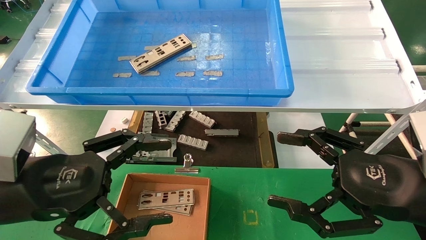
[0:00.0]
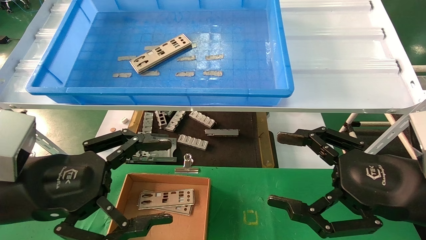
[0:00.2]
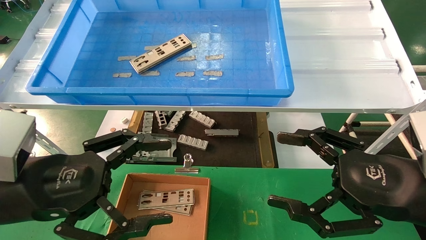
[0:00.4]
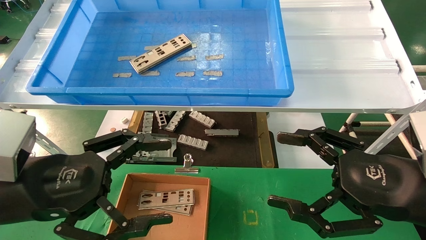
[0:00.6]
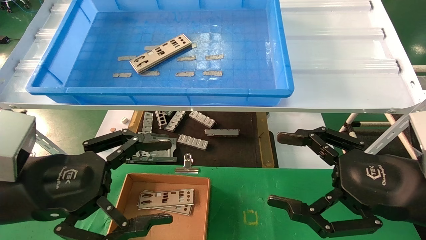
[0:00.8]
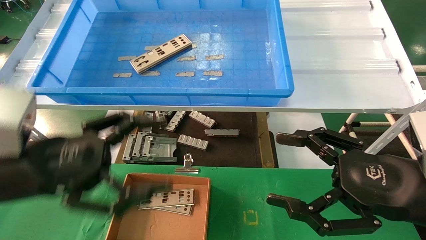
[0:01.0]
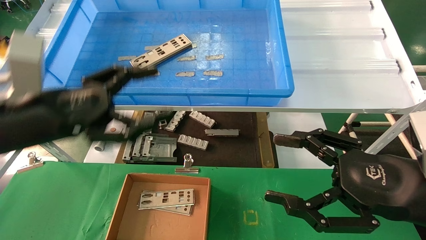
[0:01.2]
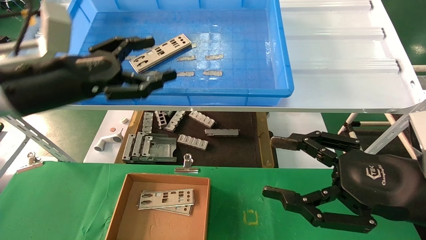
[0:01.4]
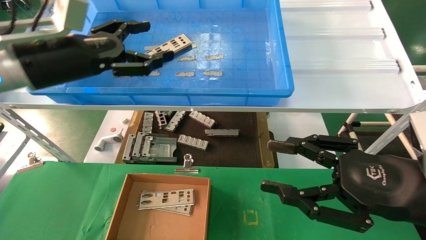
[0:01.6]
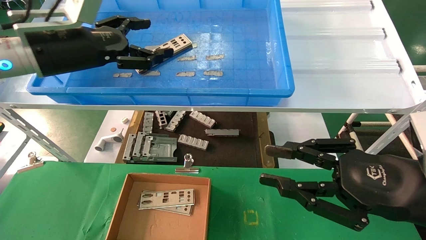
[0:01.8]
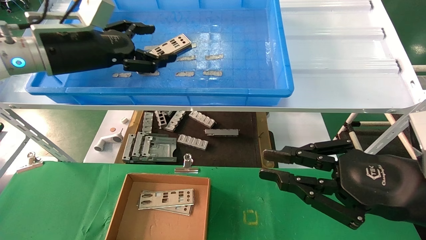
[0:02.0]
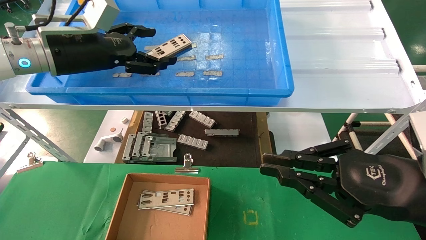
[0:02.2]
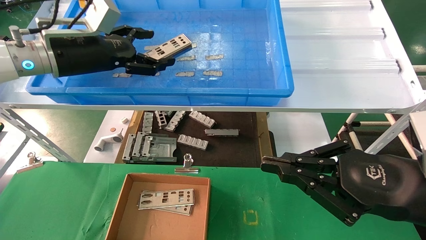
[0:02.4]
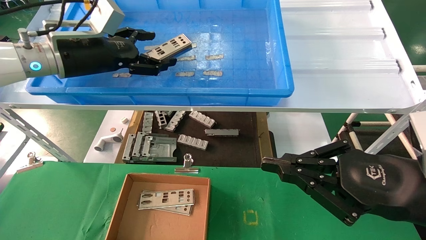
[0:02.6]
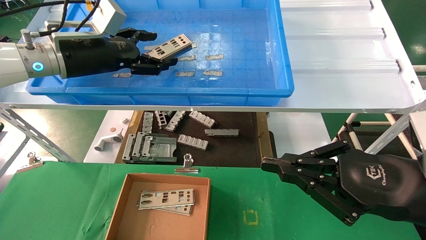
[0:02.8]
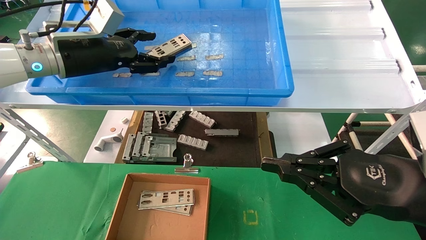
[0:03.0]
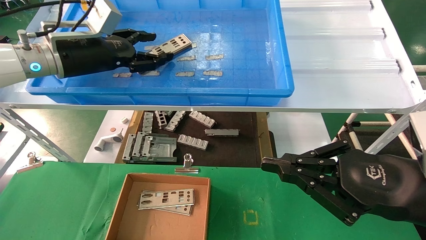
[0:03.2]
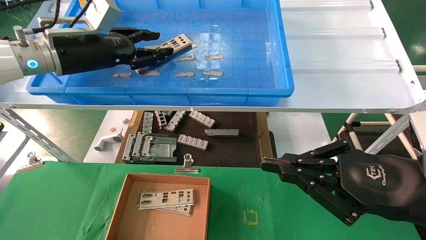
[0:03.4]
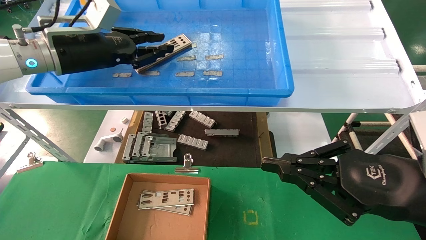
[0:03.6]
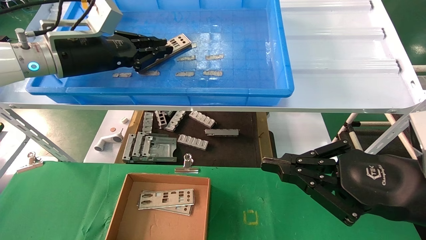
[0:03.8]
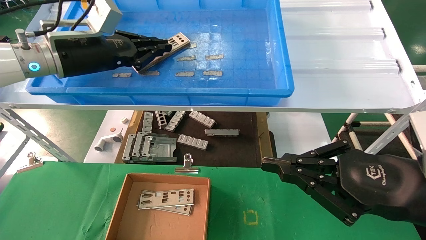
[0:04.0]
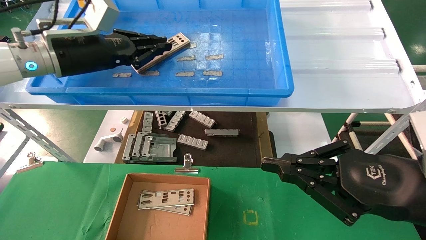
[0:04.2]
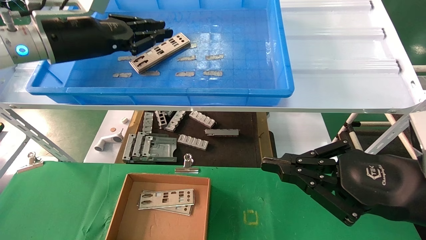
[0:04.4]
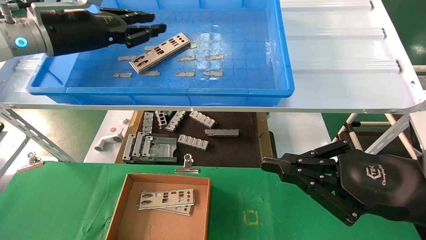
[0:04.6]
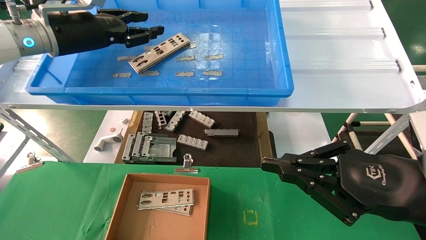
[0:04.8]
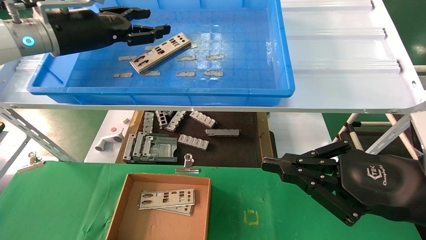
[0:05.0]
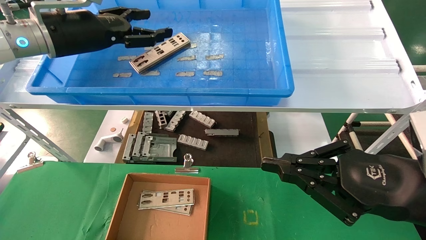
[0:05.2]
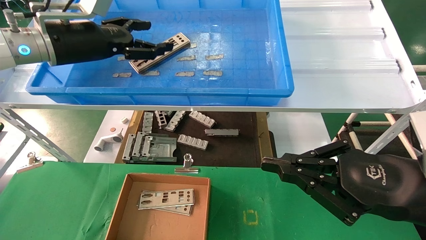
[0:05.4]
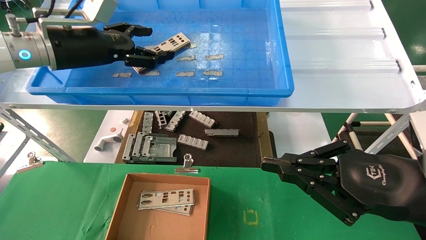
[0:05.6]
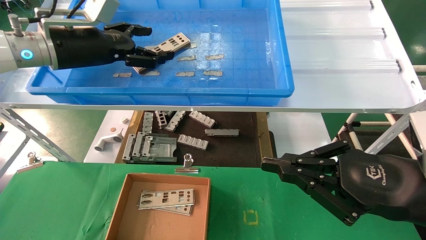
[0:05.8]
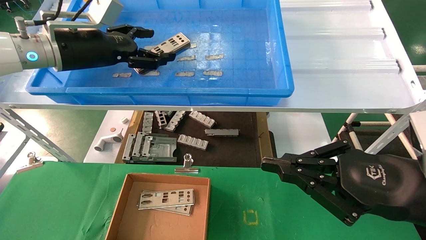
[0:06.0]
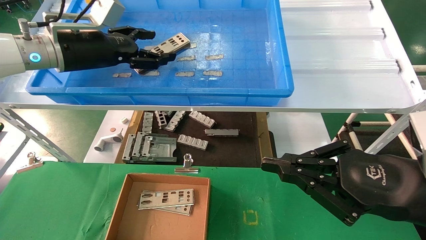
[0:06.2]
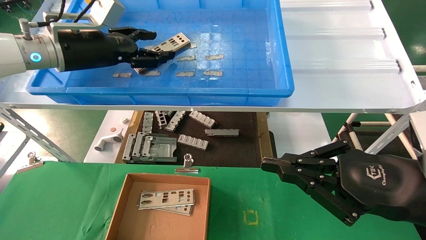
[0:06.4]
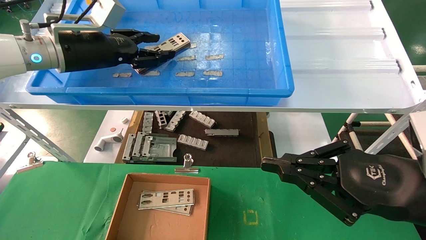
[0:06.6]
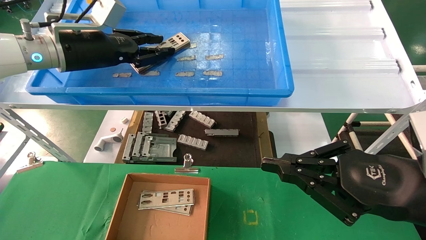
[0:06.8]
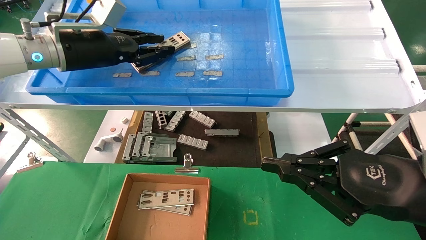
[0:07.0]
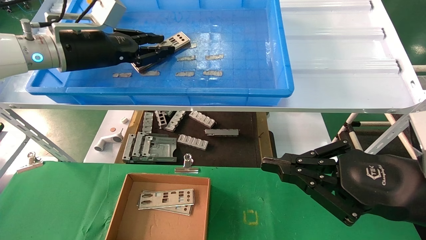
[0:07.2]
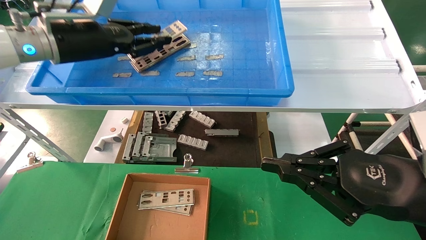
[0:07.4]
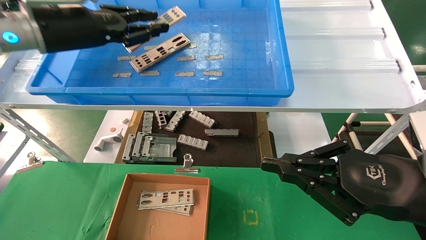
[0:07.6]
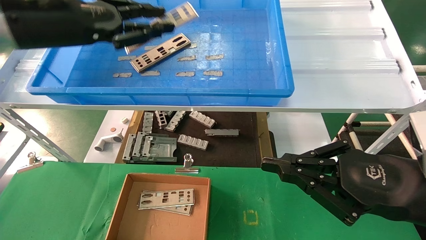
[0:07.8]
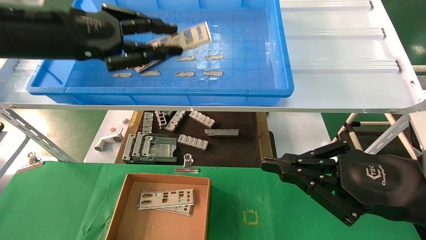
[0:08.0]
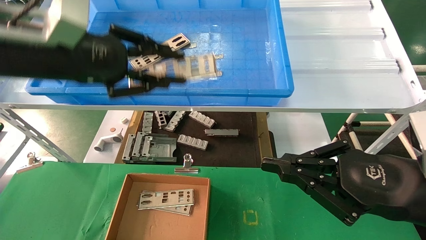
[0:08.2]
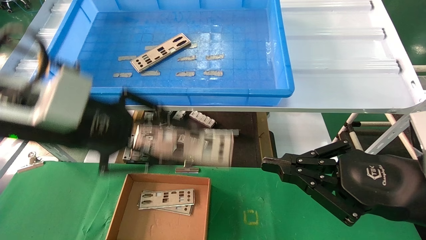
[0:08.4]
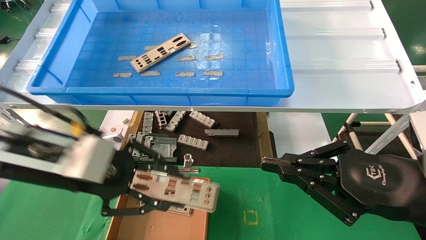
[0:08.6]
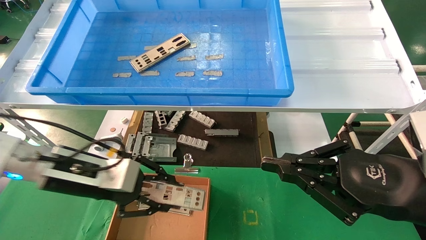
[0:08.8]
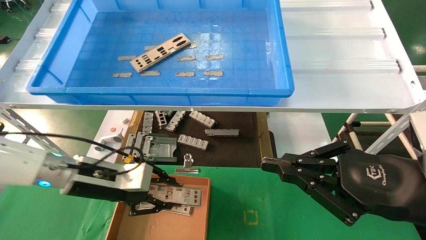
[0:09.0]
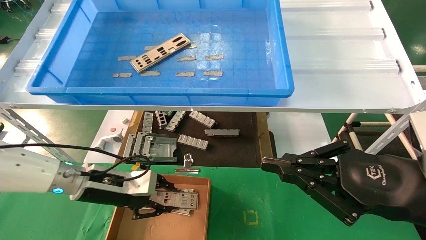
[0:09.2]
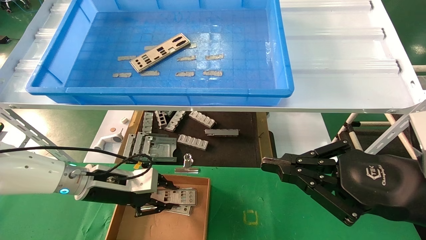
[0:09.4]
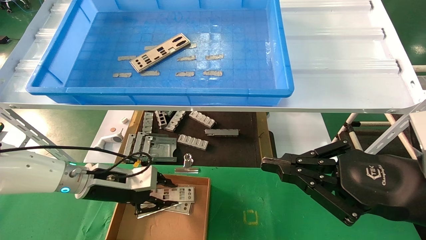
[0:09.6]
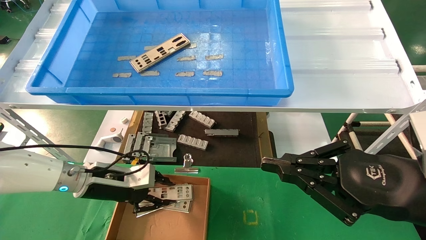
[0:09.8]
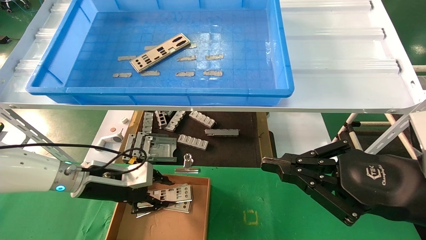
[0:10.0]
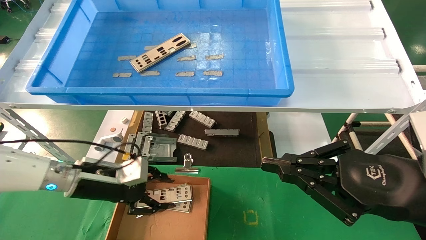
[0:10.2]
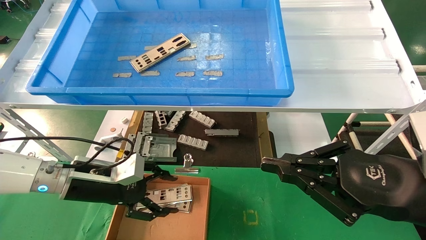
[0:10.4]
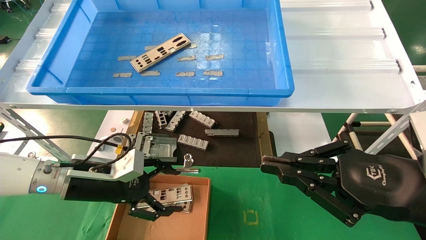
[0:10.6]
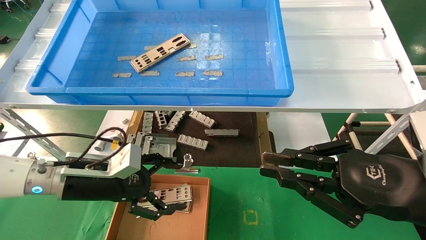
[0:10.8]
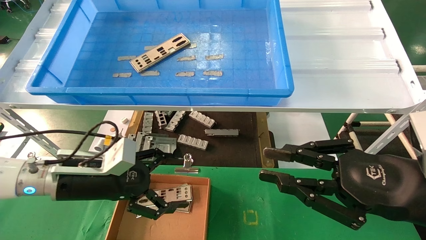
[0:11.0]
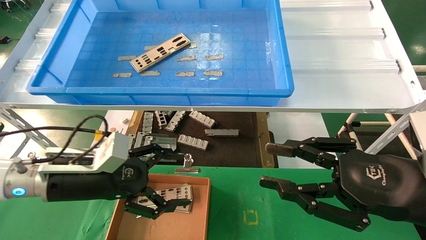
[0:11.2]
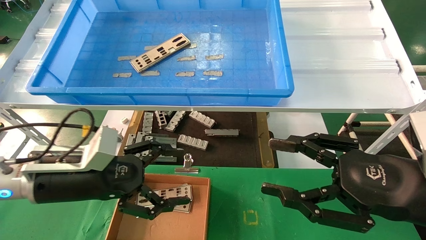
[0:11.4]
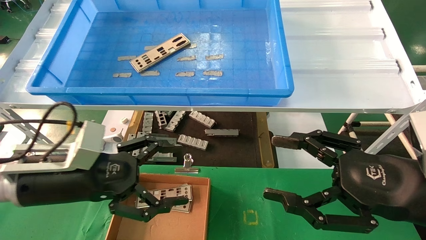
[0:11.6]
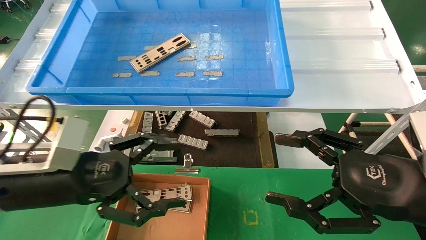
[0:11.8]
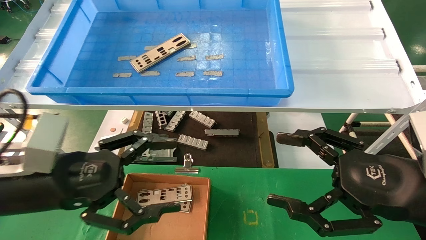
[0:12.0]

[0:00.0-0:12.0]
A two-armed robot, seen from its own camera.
Task of the whole recording: pick up the parts on the tray and put them in the cardboard box.
Step, 0:01.4 to 0:07.2: Pick up the IO bracket from the container box.
Step, 0:07.4 to 0:10.0: Place the IO bracket into the ingredient slot.
0:00.0 to 0:01.6: The left gripper travels forward and upward by roughly 20 cm. Meanwhile the right gripper closes its fingers.
0:01.6 to 0:03.0: The left gripper heads forward, covering roughly 5 cm; the right gripper closes.
0:03.0 to 0:04.4: The left gripper closes.
0:04.4 to 0:06.0: The left gripper opens its fingers.
0:06.0 to 0:07.6: The left gripper closes its fingers.
0:07.6 to 0:09.0: The left gripper heads downward, covering about 25 cm.
0:09.0 to 0:10.4: The left gripper opens.
0:10.4 to 0:12.0: The right gripper opens its fingers, while the left gripper travels backward and upward by roughly 15 cm, and opens its fingers.

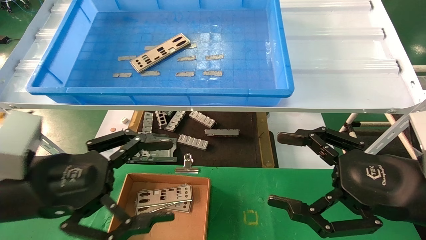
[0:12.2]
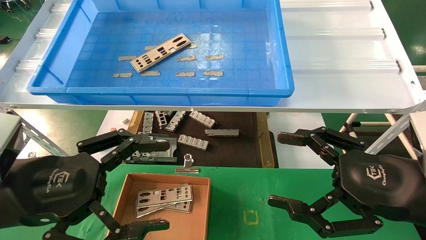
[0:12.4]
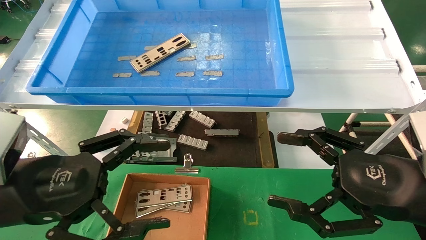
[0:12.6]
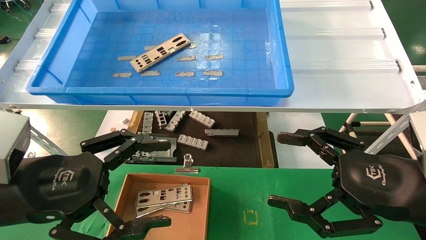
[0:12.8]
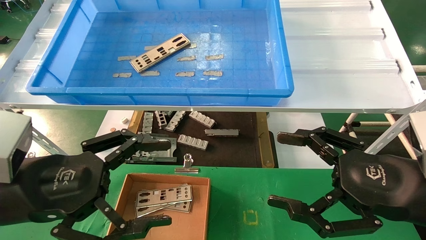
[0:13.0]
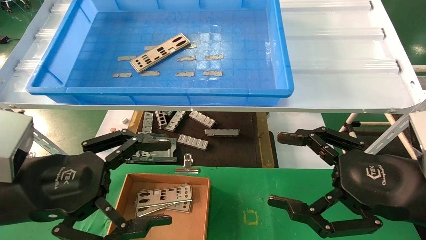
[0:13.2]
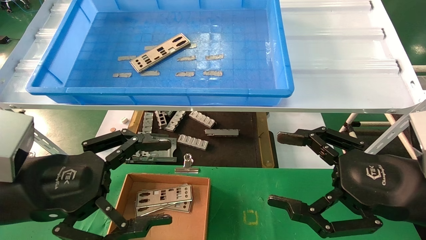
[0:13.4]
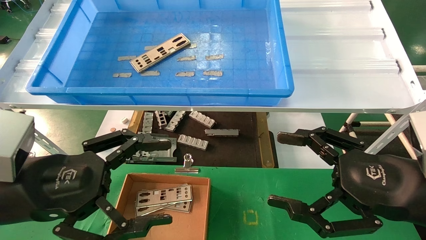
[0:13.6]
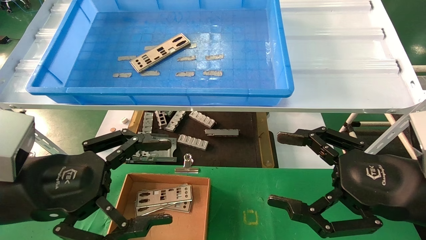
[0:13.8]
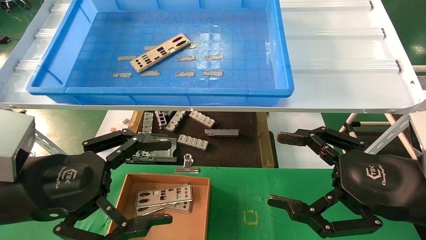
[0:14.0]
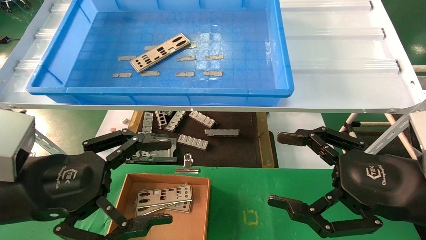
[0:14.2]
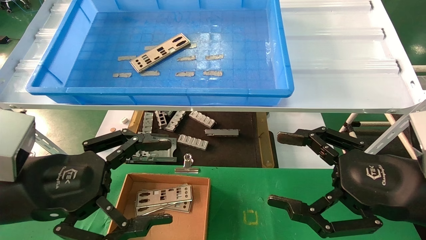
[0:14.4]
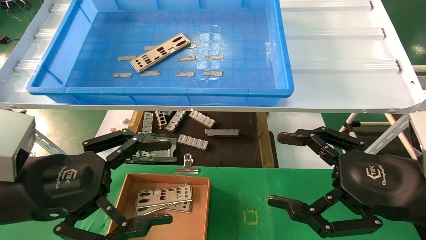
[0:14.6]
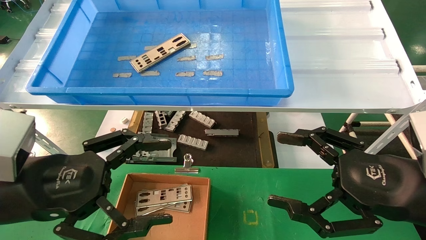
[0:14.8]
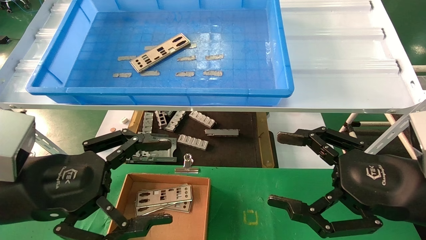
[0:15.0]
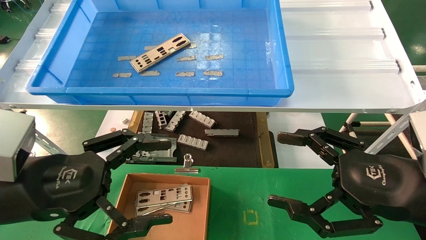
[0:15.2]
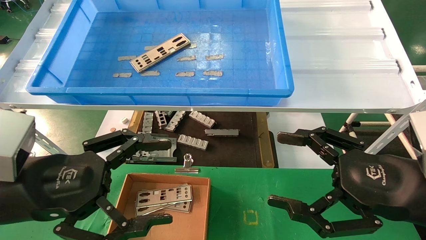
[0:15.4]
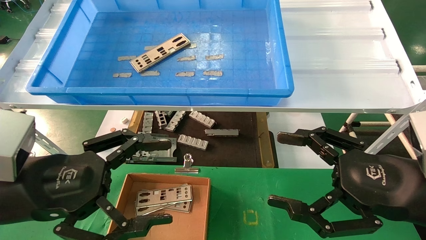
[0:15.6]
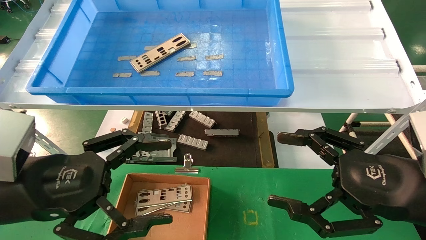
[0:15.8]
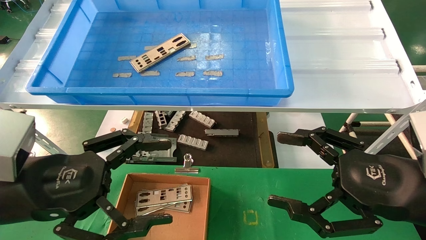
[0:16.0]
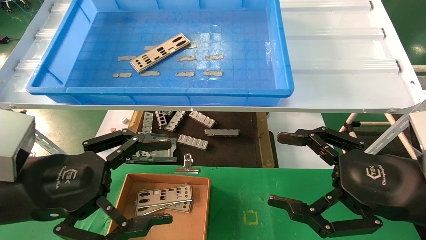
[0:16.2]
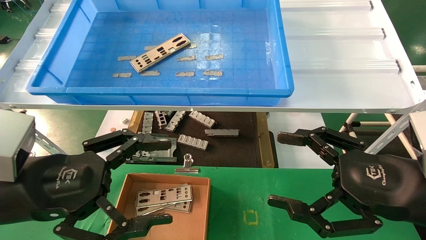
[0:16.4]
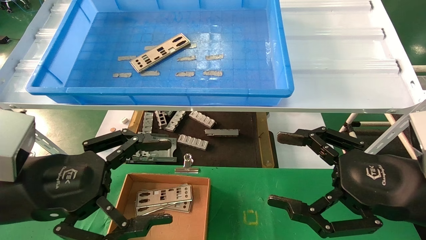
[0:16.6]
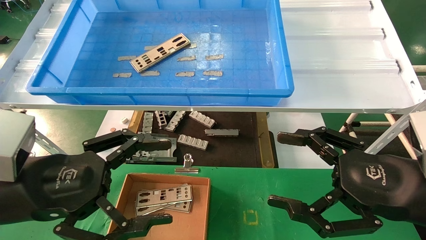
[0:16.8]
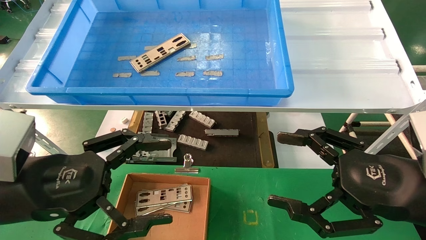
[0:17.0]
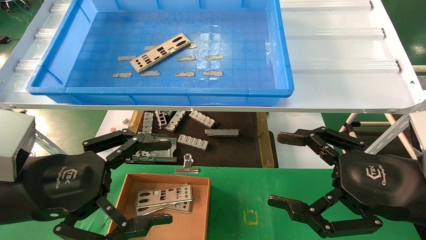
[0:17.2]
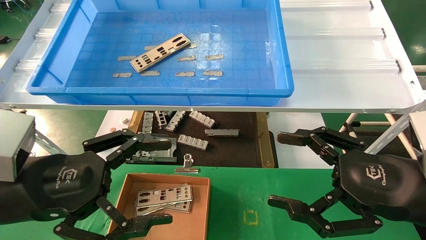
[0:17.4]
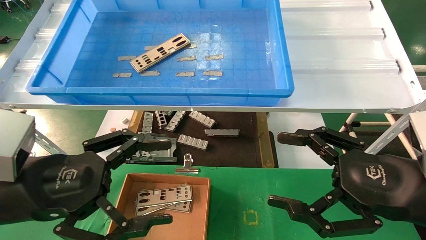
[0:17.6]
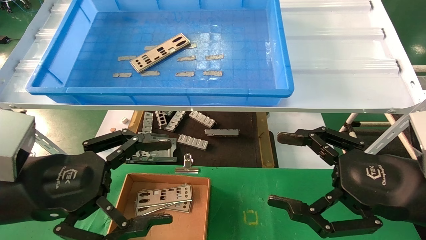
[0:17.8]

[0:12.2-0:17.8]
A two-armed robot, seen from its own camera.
Task of the whole recording: pick up the parts on the tray and put them in the cardboard box.
0:12.2 to 0:17.8: Both grippers stay put.
